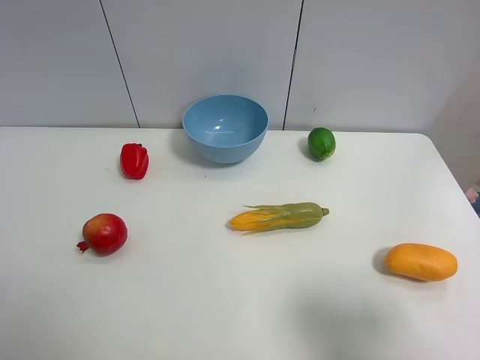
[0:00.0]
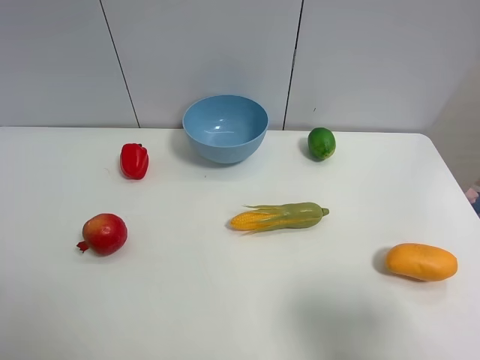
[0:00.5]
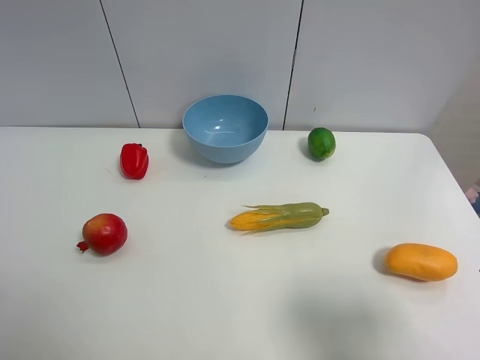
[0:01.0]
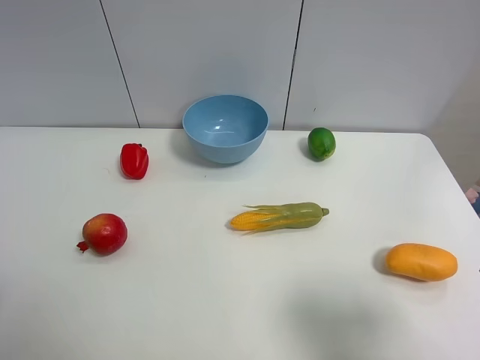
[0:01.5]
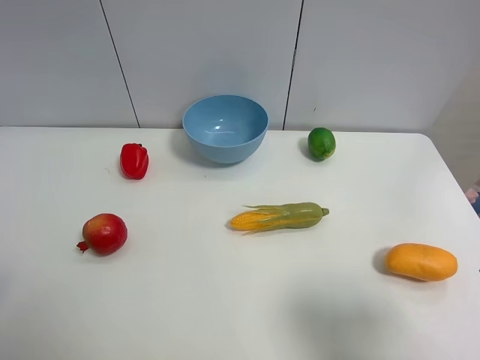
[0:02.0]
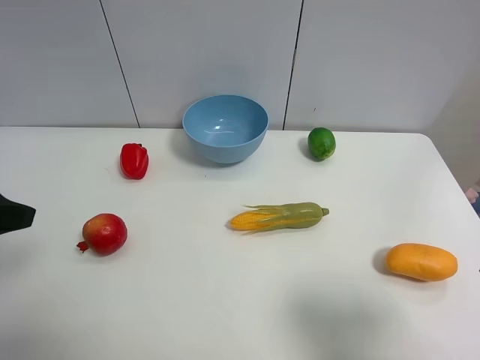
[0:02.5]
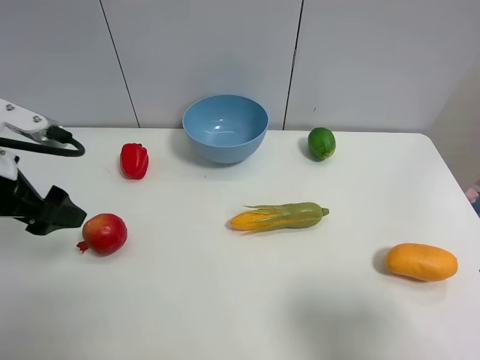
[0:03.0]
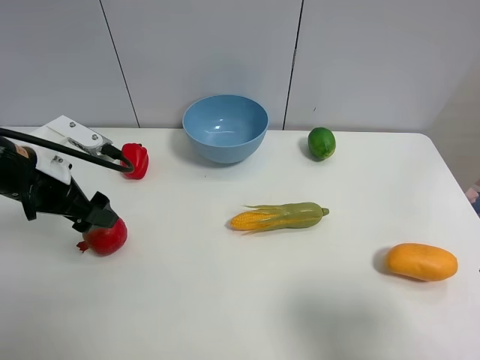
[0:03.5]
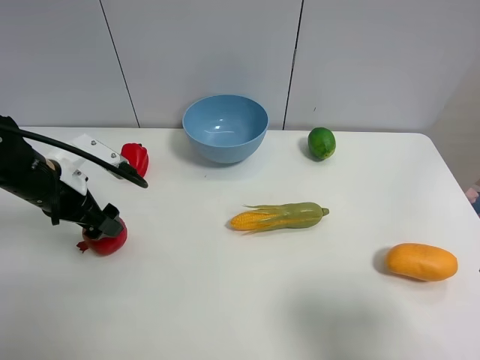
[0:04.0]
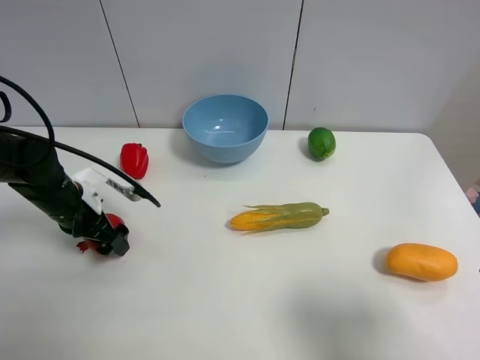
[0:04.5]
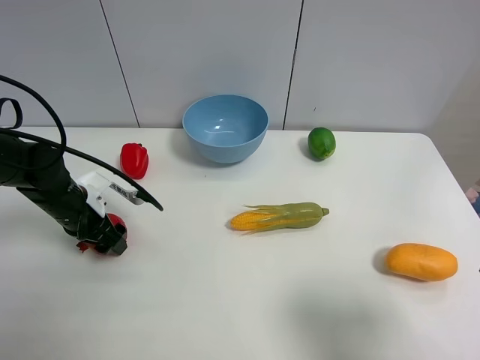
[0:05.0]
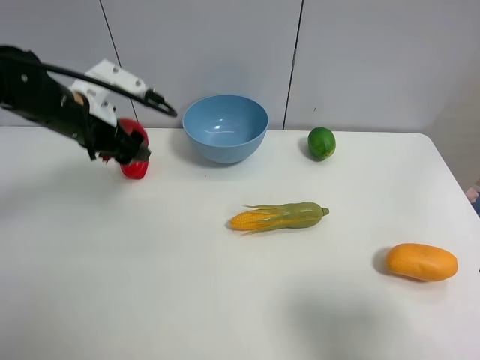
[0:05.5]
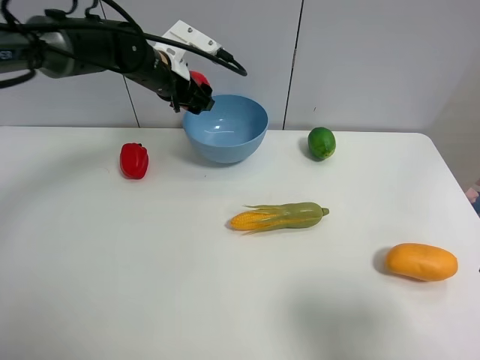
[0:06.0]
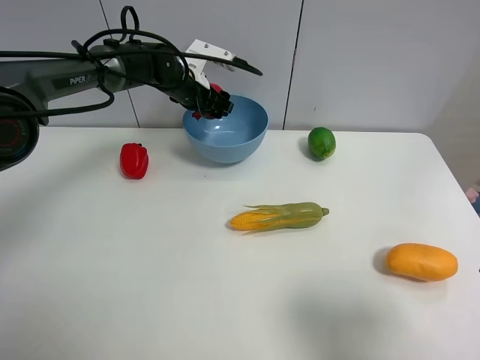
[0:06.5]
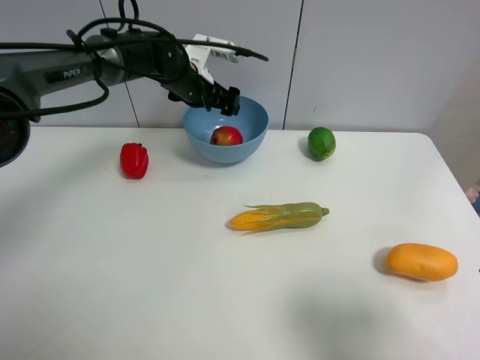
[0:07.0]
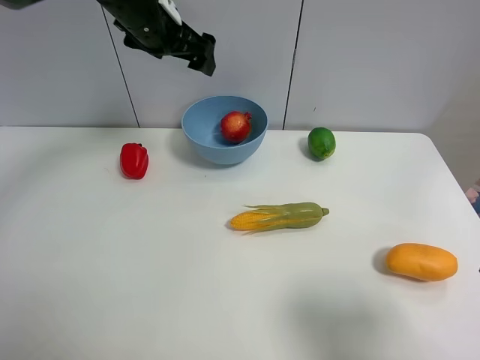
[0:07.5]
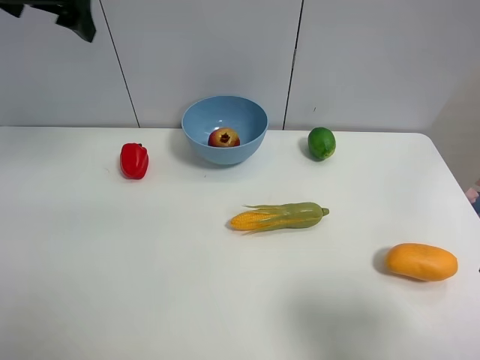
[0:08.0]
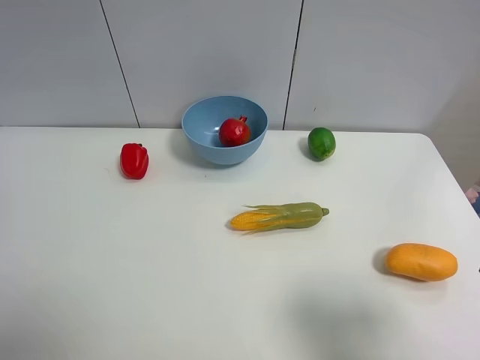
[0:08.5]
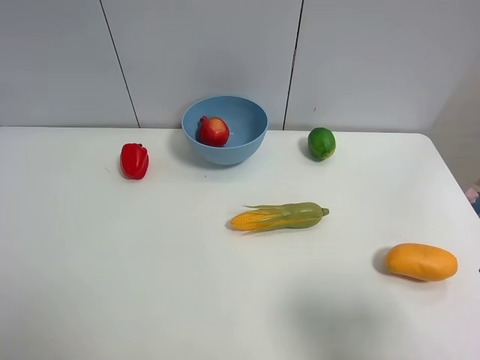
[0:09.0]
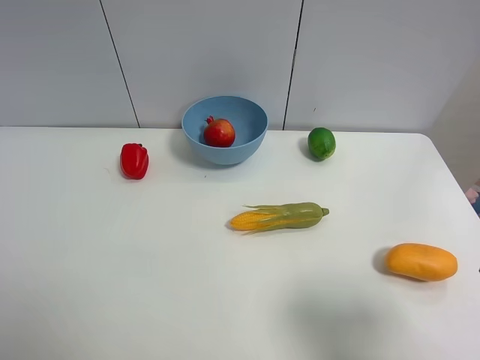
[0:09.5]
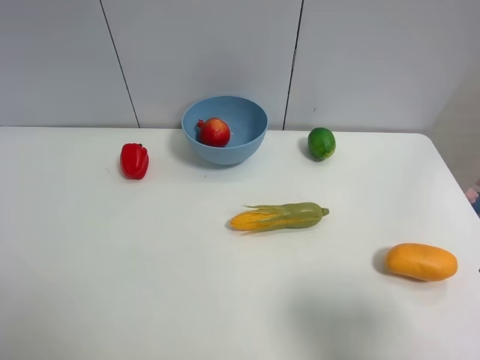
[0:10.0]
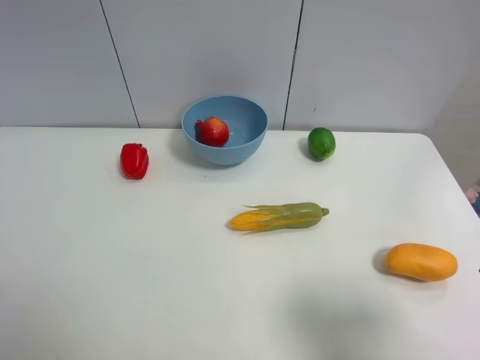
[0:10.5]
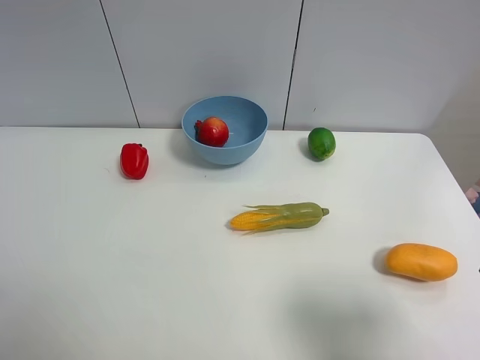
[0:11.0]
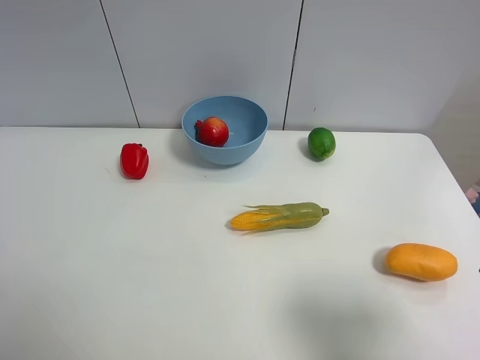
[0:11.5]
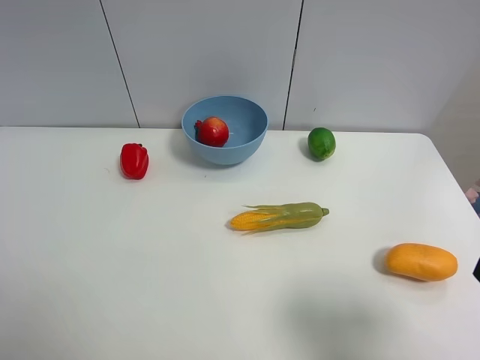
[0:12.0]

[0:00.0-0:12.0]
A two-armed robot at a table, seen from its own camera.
Task of the whole recording: Put the three fruits on the table into a bowl.
Step, 0:00.0 to 0:05.0: Grasp the pomegranate with left gripper.
Step, 0:05.5 to 0:06.5: Place the pomegranate in the blue bowl with left gripper.
0:02.0 to 0:04.0: The left gripper moves forward and downward, approximately 25 cm.
0:04.0 to 0:06.0: The left gripper goes approximately 25 cm forward and to the right, and closes.
0:06.0 to 0:08.0: The left gripper shifts approximately 25 cm upward, to the left and backward, and opens its fingers.
0:08.0 to 0:10.0: The left gripper shifts about 40 cm backward and downward.
0:10.0 to 0:12.0: Neither gripper changes place.

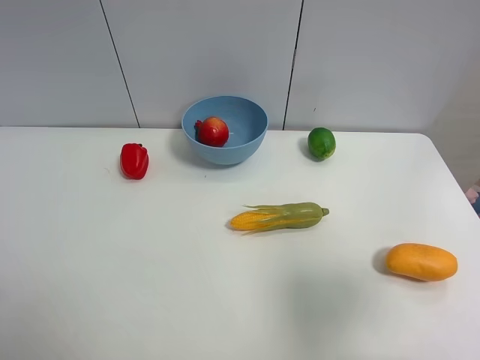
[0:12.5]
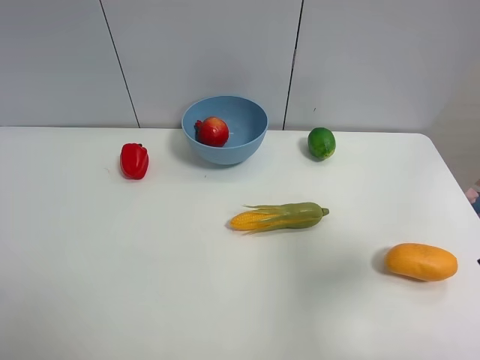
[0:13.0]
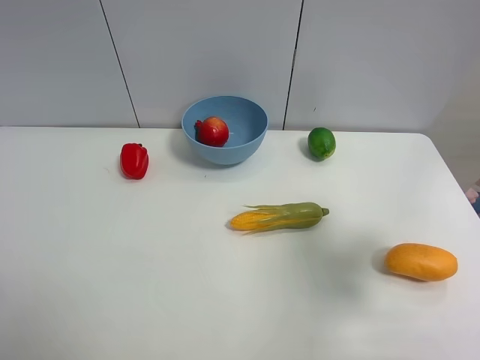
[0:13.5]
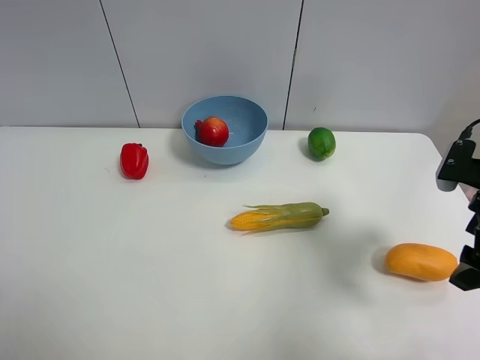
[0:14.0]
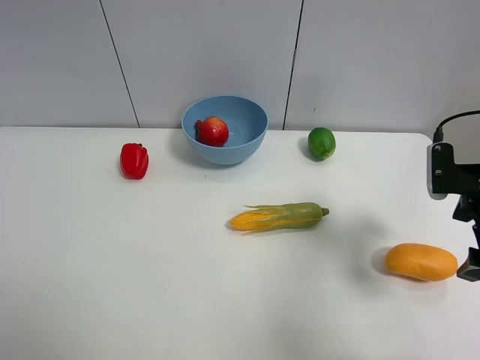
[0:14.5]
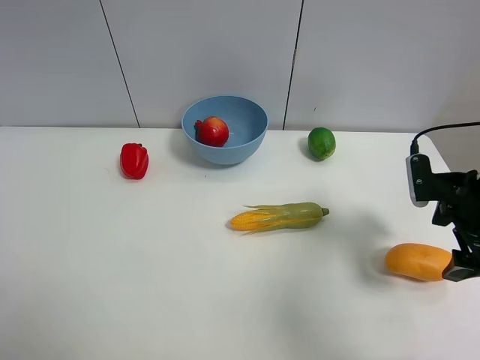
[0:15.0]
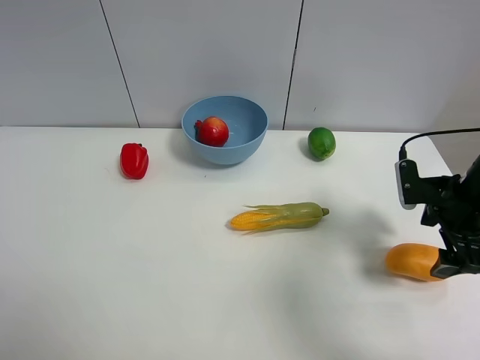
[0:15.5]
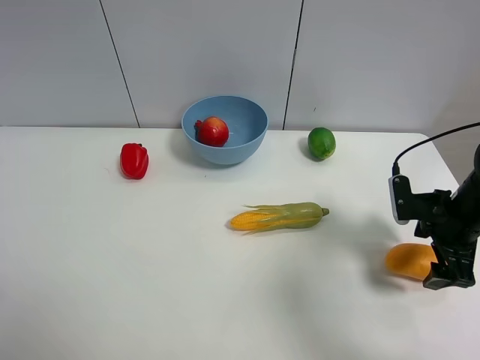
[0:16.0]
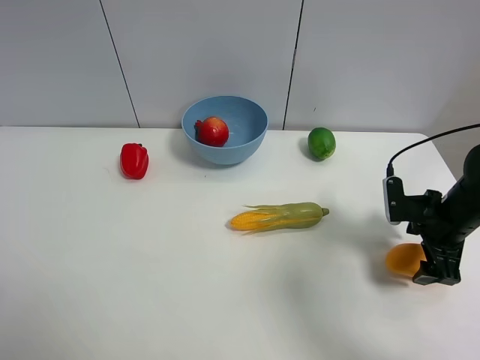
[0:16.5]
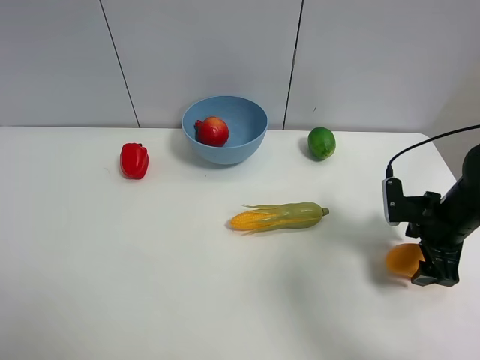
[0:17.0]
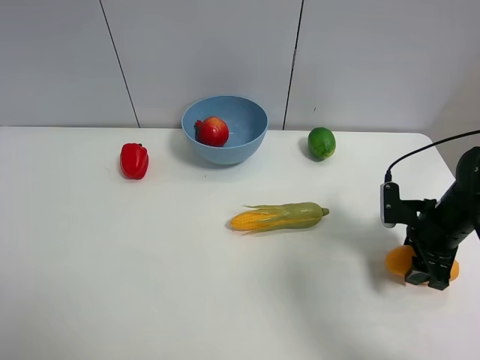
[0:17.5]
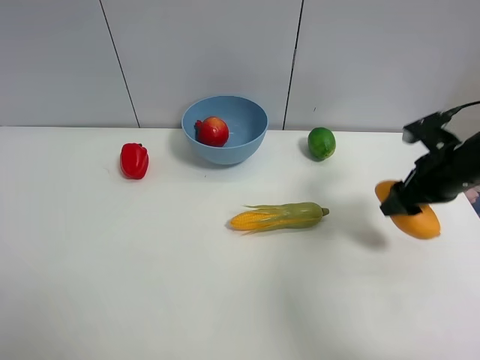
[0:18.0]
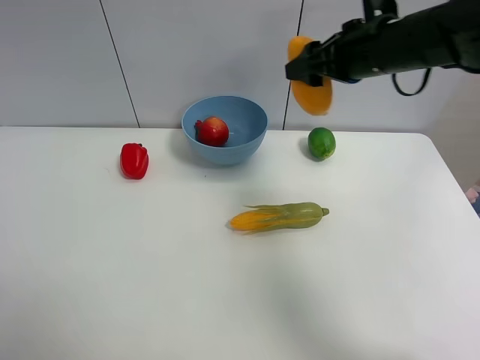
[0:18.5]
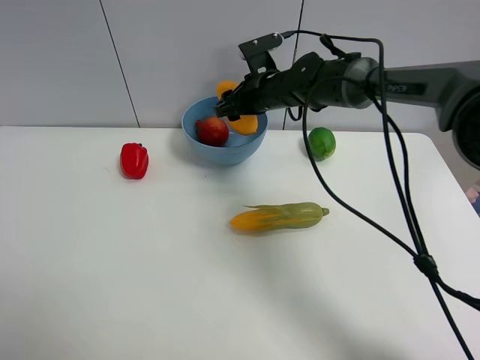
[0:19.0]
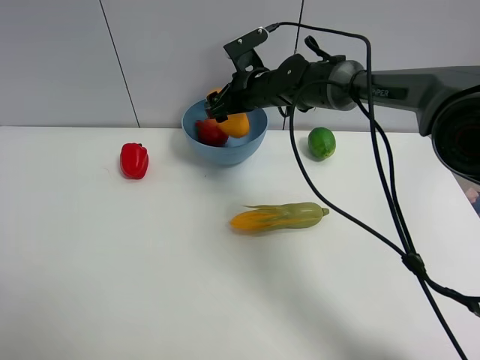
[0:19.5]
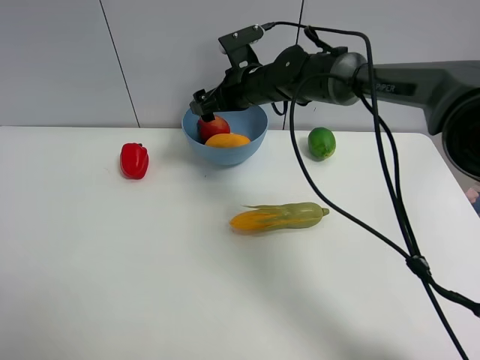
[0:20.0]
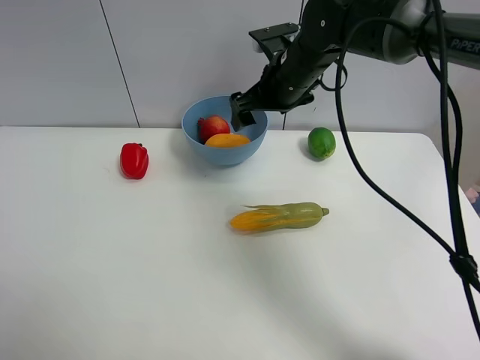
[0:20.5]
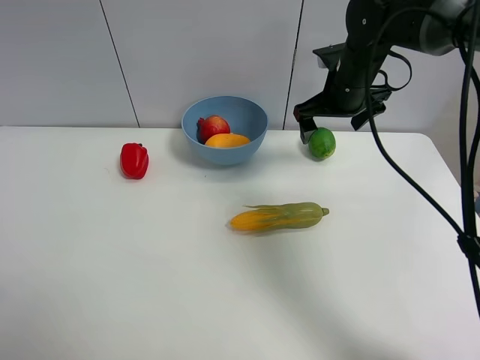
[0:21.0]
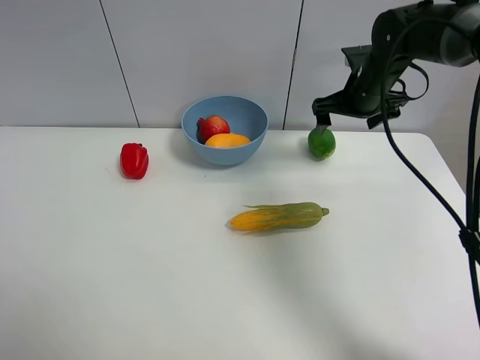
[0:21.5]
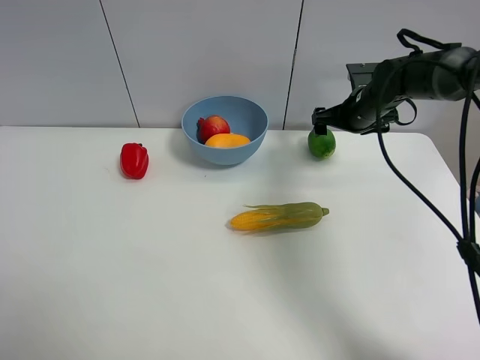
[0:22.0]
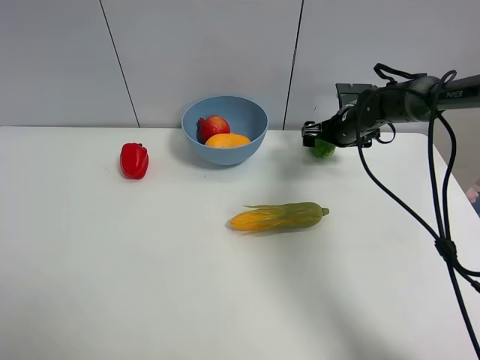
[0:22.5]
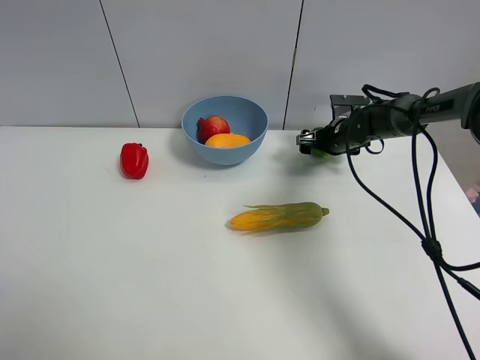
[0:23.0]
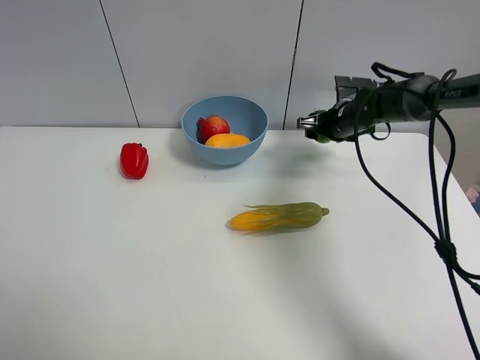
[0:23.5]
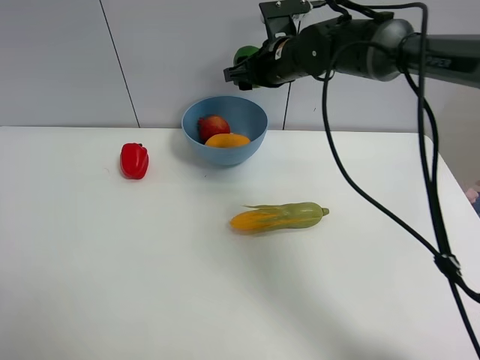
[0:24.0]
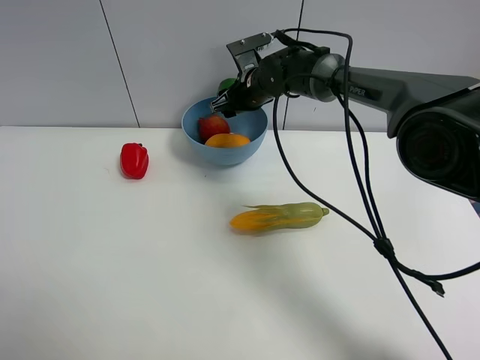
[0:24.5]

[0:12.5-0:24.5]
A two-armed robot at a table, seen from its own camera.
Task of the whole recording: Put the three fruits on the table into a bowl.
Step, 0:12.5 to 0:17.5: Grasp the mango with right gripper.
Step, 0:18.0 to 0:19.5: Place the mango in the blue bowl with right gripper.
Step, 0:20.0 to 0:23.0: Grasp the green lemon with right gripper.
0:12.5 to 0:14.5: The right gripper goes about 20 cm forward and downward.
0:14.5 to 0:16.5: The right gripper goes about 10 cm downward.
0:16.5 to 0:18.5: The right gripper heads upward, to the left and forward, covering some 25 cm, and closes its fingers.
0:18.5 to 0:20.5: The right gripper is displaced to the left by roughly 5 cm, and opens its fingers.
0:20.5 to 0:22.5: The right gripper is displaced to the right, downward and forward by approximately 20 cm.
0:22.5 to 0:24.5: The right gripper goes about 20 cm to the left, and closes up.

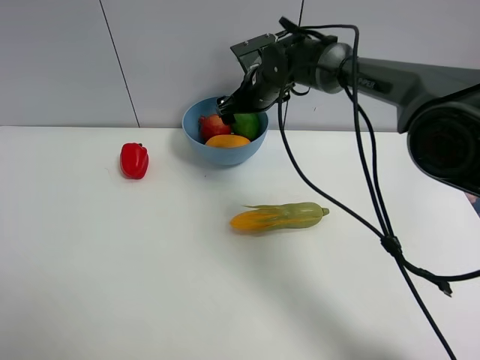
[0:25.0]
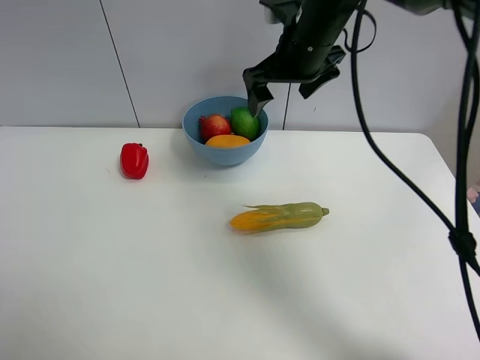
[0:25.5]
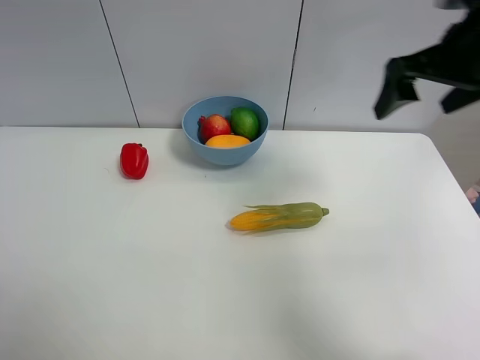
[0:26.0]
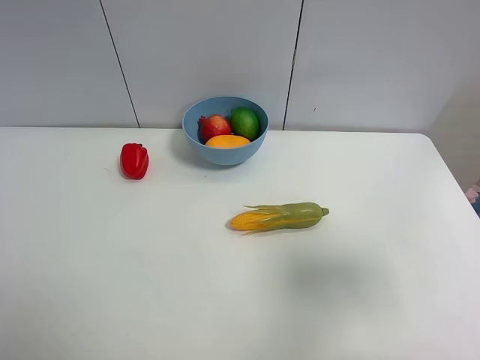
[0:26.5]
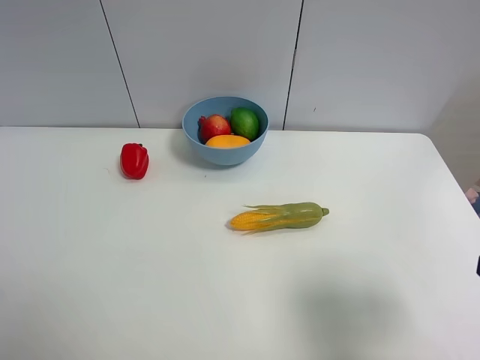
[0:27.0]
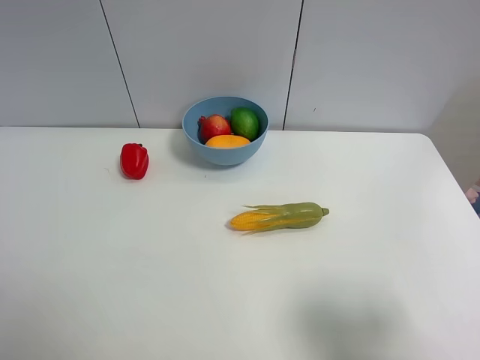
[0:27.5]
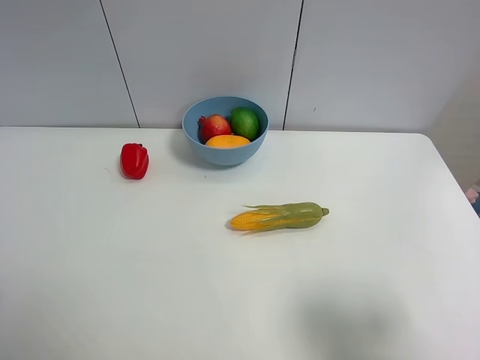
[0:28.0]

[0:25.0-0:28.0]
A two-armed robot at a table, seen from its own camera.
Task of the whole recording: Put the three fruits on the table into a bowl.
0:25.0 to 0:26.5: The right gripper shifts some 50 cm backward and to the right.
0:26.5 to 0:28.0: The right gripper travels downward and backward by about 10 cm.
